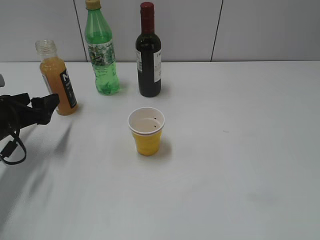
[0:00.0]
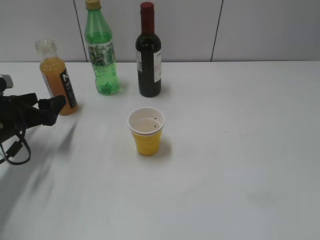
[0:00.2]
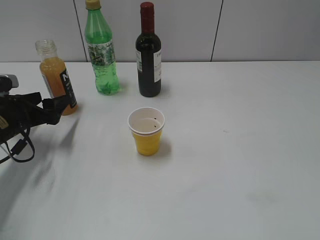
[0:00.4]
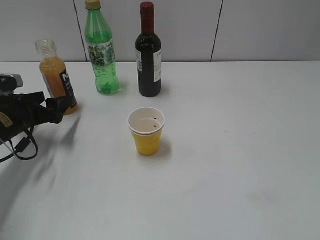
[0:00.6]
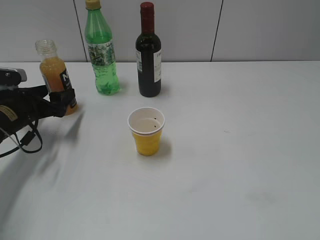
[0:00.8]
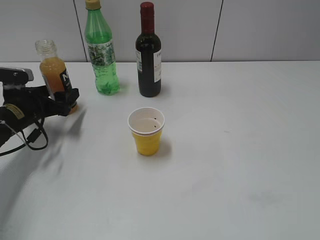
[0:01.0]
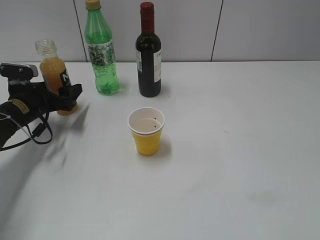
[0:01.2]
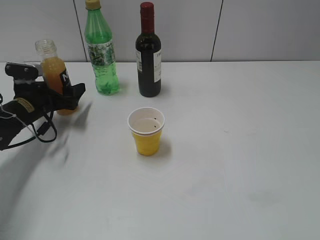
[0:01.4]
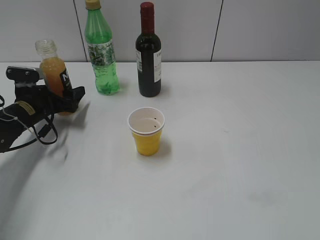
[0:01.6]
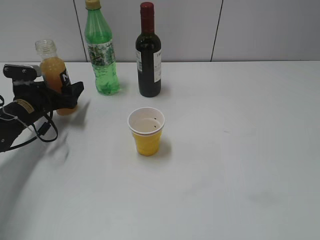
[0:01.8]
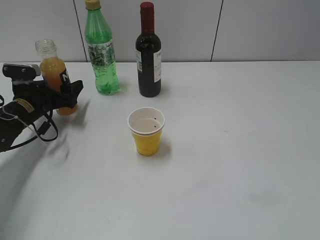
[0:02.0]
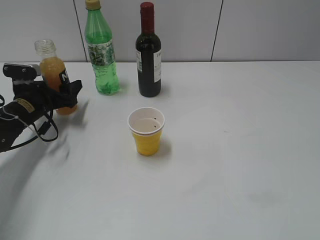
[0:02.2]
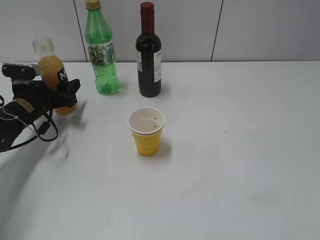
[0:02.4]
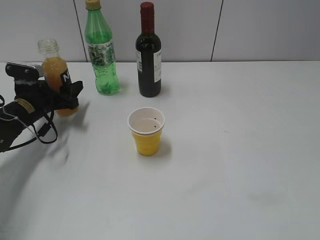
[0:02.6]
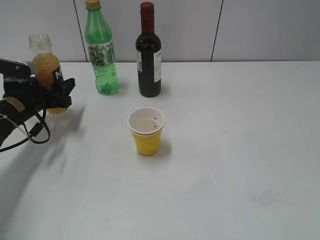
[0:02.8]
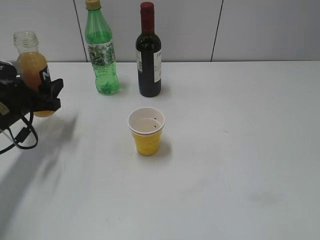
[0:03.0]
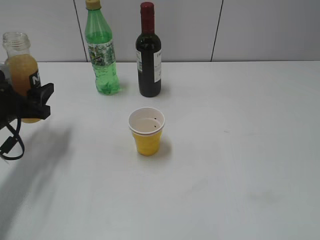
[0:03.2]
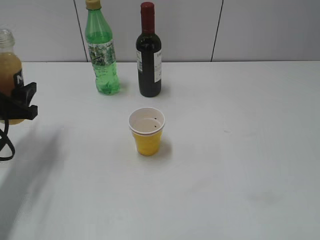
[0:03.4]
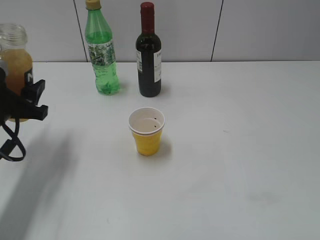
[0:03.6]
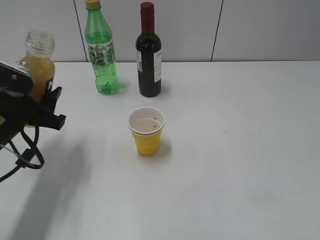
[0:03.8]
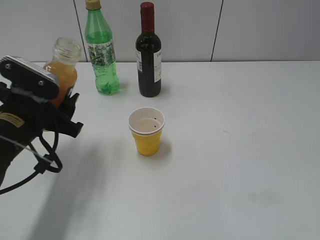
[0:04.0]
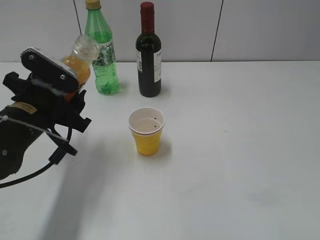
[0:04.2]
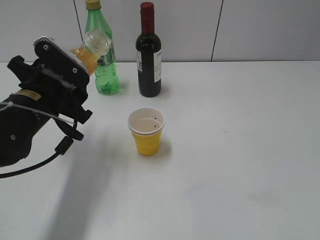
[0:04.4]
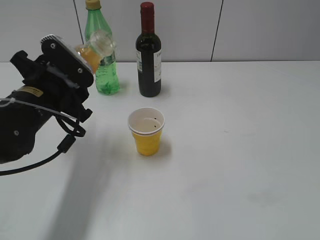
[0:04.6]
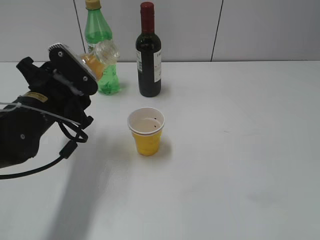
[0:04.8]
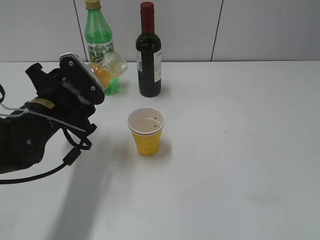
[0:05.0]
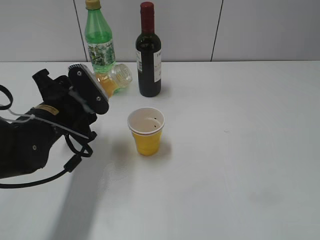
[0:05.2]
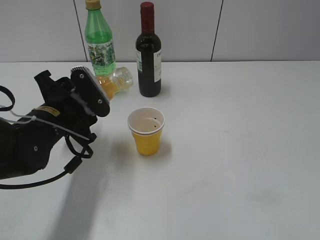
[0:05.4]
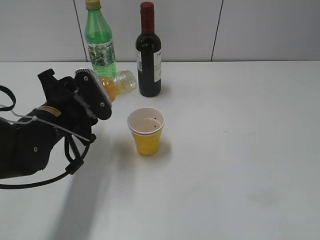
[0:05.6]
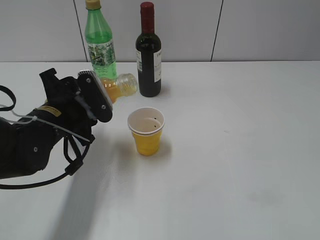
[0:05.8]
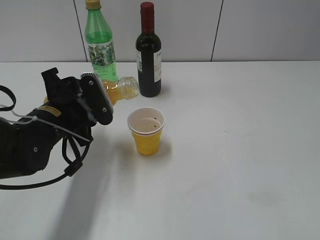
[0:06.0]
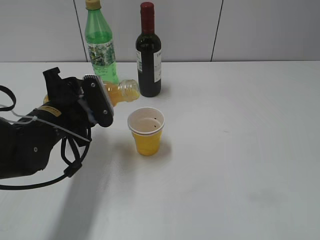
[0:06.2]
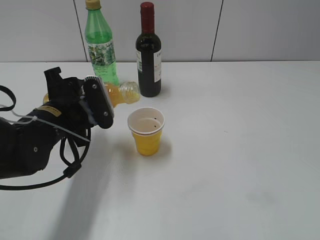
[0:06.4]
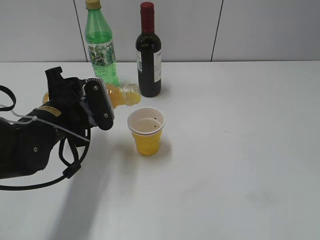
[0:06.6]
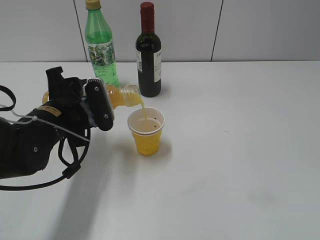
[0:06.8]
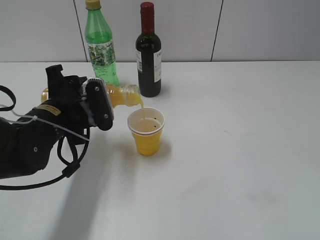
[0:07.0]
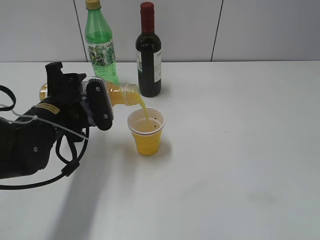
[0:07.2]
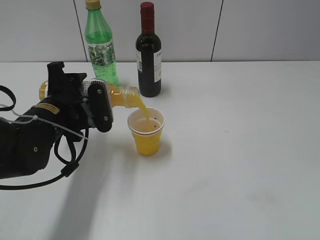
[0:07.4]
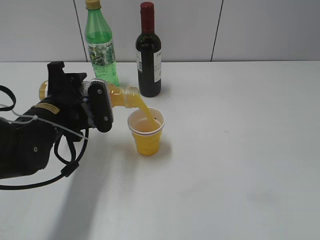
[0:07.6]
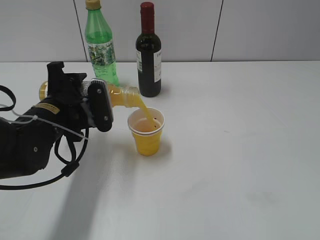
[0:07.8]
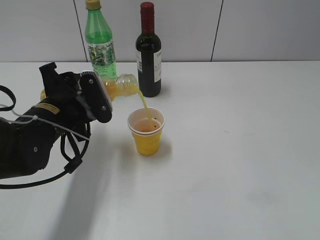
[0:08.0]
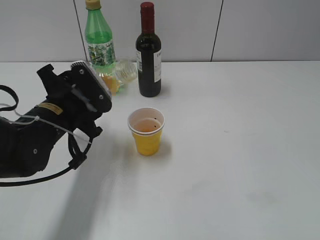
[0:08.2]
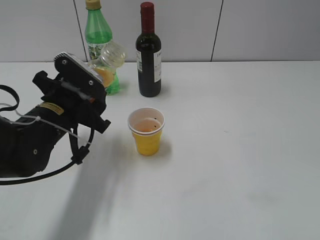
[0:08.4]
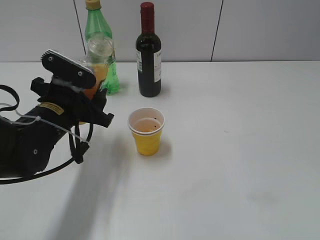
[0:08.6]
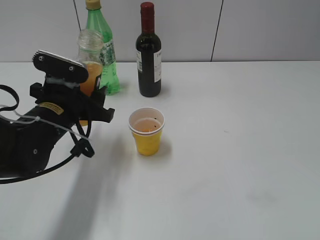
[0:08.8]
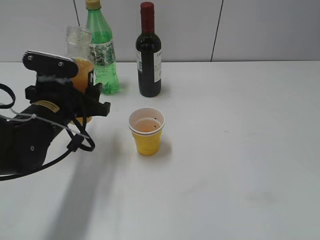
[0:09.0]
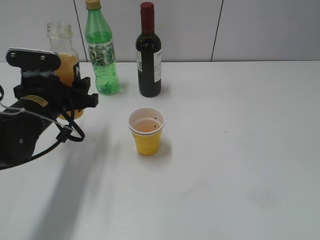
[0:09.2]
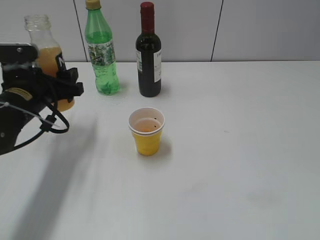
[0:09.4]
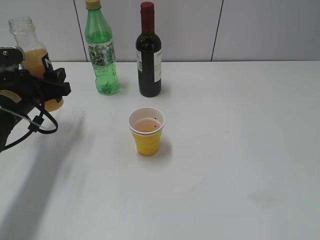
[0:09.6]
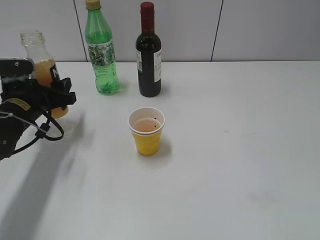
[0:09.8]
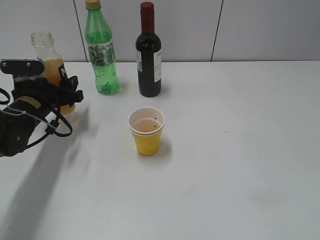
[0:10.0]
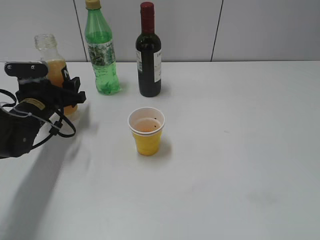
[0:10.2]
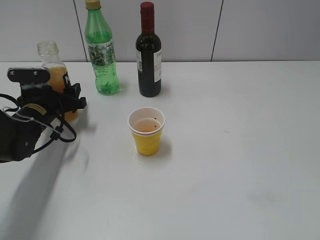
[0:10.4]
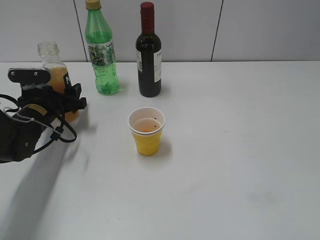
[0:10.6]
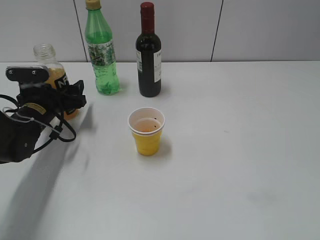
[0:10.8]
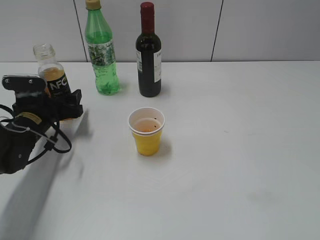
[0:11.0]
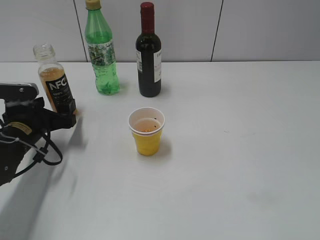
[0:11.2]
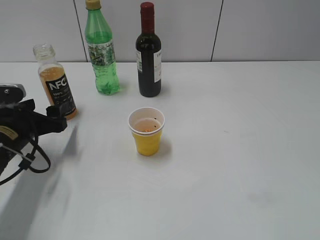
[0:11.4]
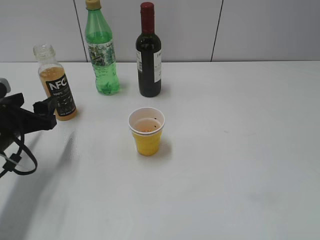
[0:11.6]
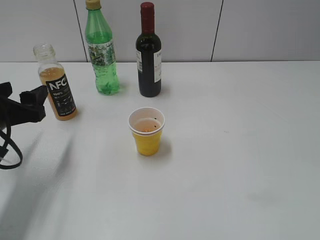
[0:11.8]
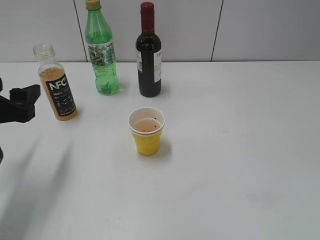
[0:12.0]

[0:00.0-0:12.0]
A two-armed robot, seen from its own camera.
Step, 0:00.0 to 0:02.4: Grasp the bottle with orange juice with left gripper.
Step, 0:02.6 to 0:08.0: Pour the orange juice from bottle to cup with left gripper.
Step, 0:08.4 to 0:11.0: Place the orange juice bottle on the table with left gripper.
0:00.0 to 0:01.6: The left gripper moves forward, approximately 10 cm.
0:01.6 to 0:03.0: The left gripper moves approximately 5 cm, and closes its fingers.
0:03.0 to 0:04.4: The left gripper heads to the right, backward and upward, covering roughly 15 cm.
0:06.0 to 0:07.6: The grippers move only a little.
0:09.0 to 0:10.4: The left gripper goes roughly 15 cm forward, to the left and downward.
0:10.4 to 0:12.0: The left gripper moves backward and upward, approximately 15 cm, and opens.

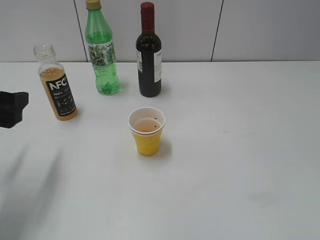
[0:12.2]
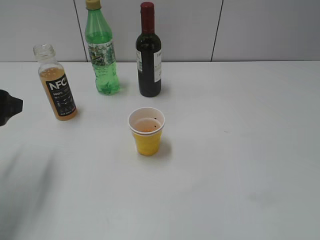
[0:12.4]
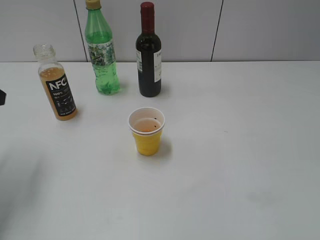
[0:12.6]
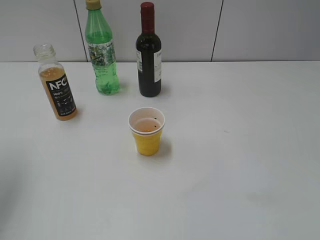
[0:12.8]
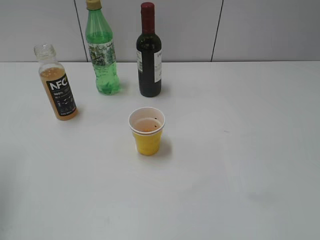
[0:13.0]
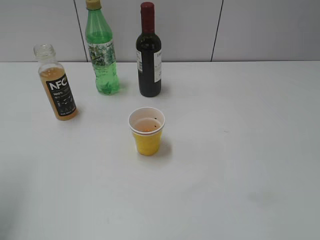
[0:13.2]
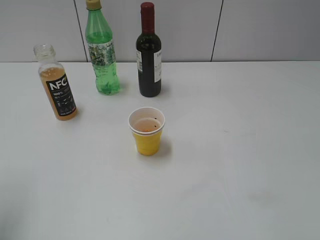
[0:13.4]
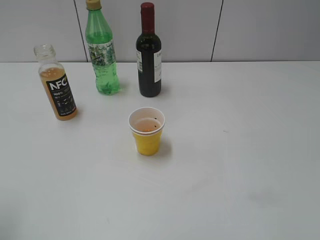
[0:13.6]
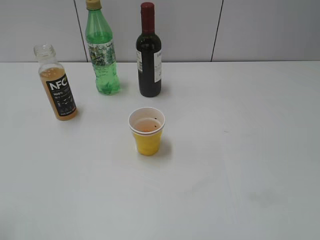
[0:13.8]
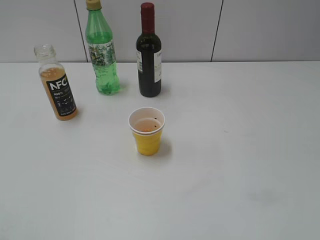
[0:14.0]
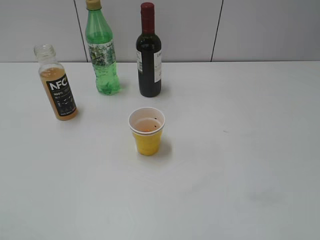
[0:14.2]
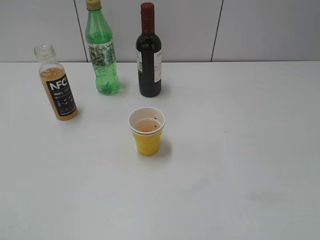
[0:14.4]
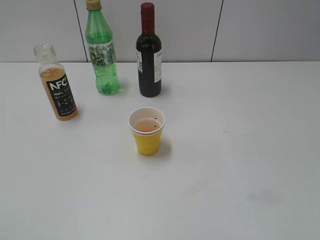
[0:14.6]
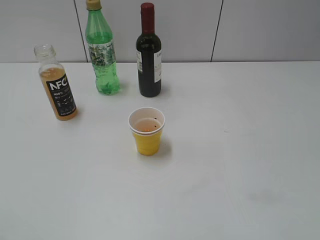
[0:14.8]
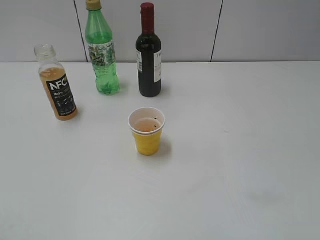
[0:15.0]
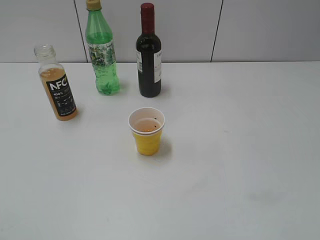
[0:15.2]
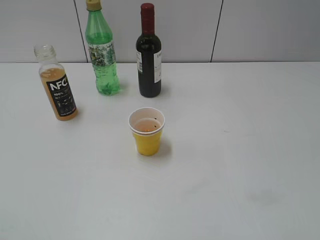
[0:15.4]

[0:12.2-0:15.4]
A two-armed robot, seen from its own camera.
0:12.2 to 0:13.8: The left gripper goes approximately 15 cm backward and upward.
